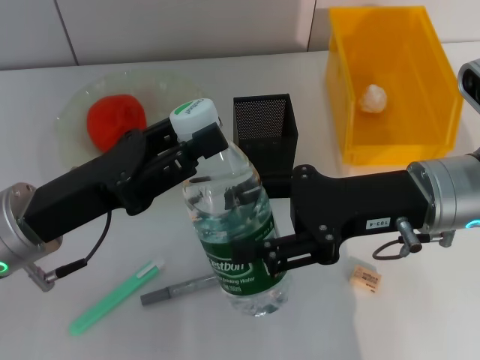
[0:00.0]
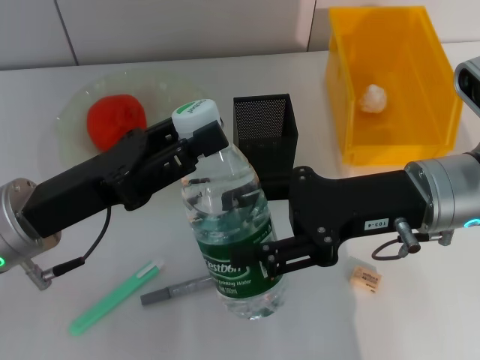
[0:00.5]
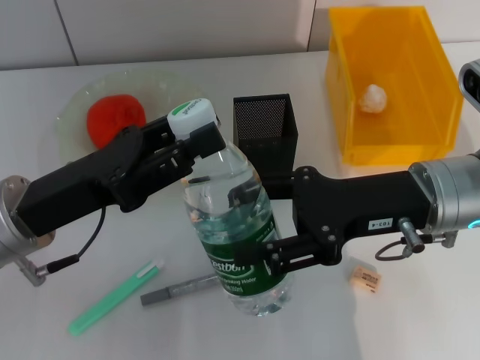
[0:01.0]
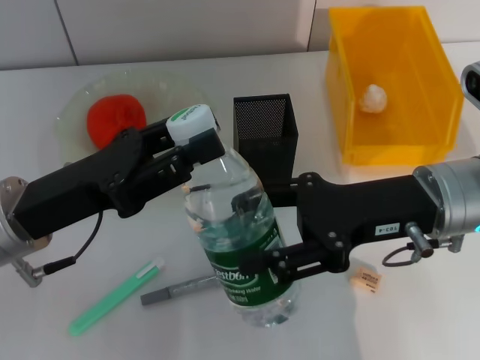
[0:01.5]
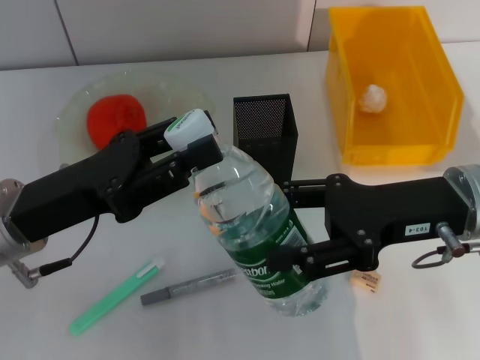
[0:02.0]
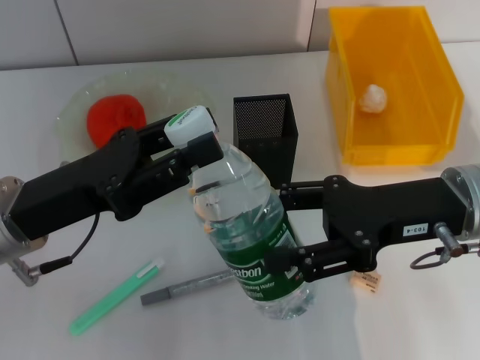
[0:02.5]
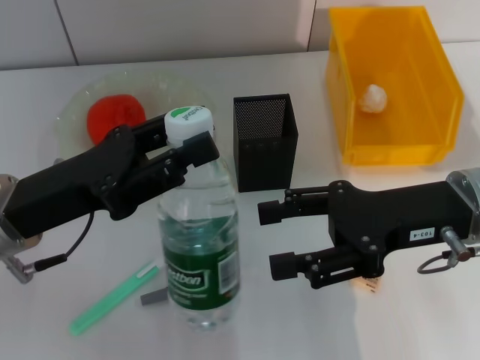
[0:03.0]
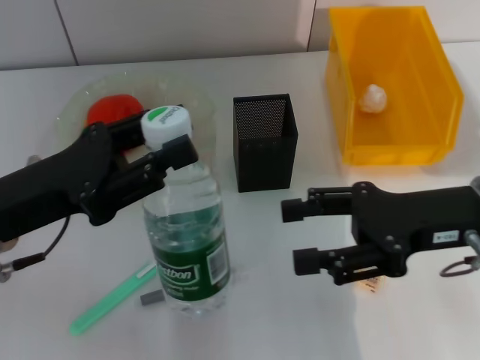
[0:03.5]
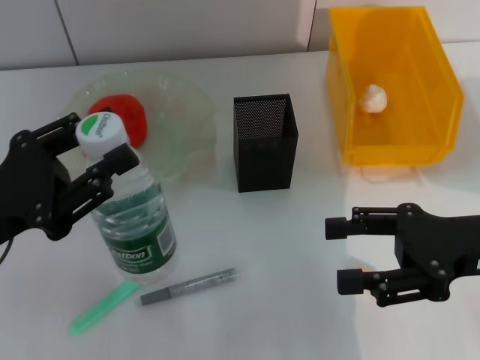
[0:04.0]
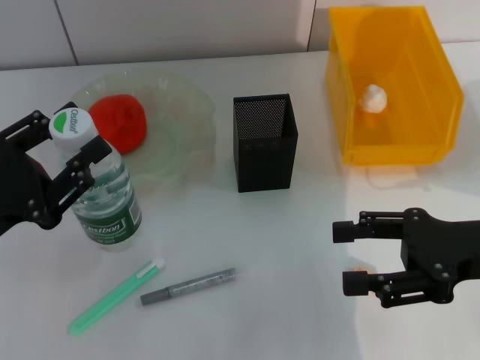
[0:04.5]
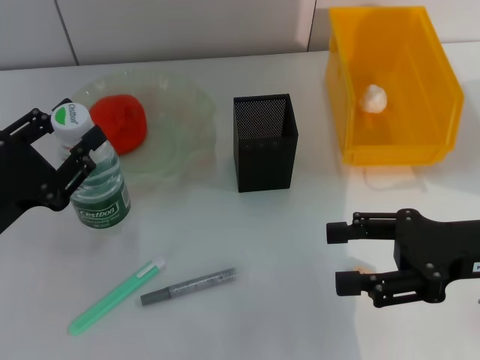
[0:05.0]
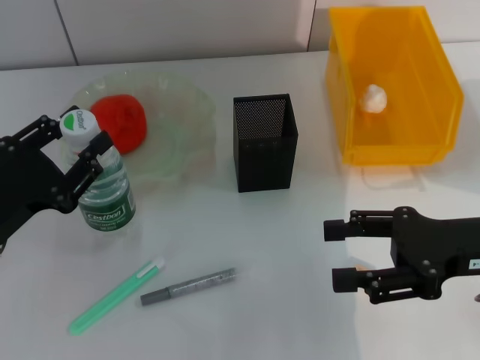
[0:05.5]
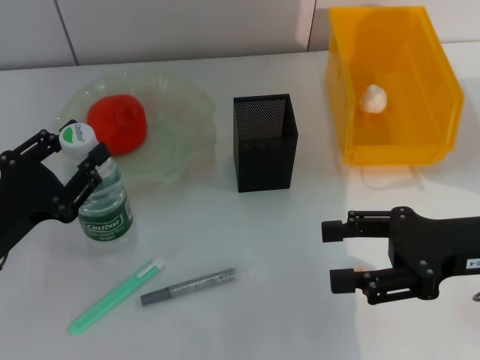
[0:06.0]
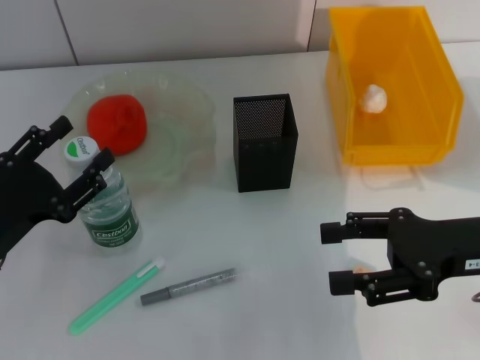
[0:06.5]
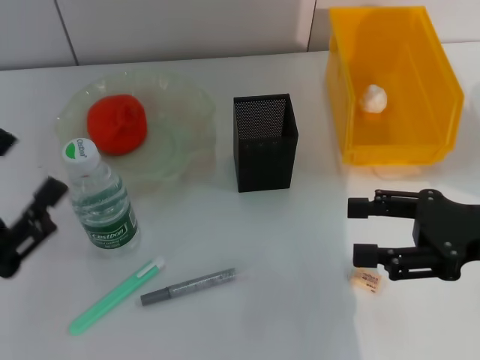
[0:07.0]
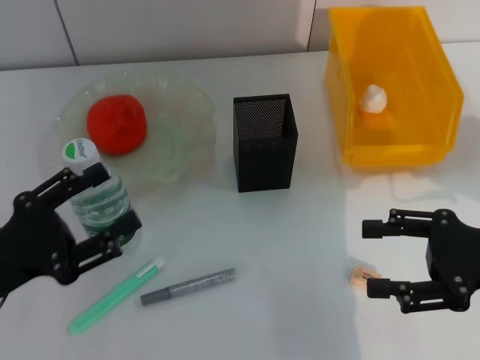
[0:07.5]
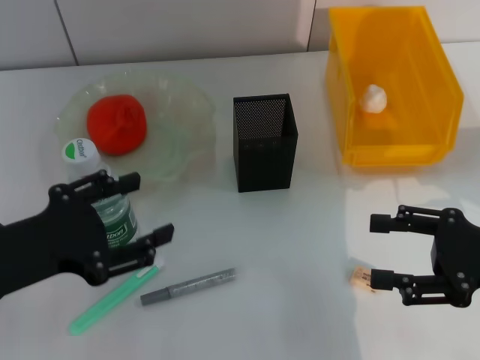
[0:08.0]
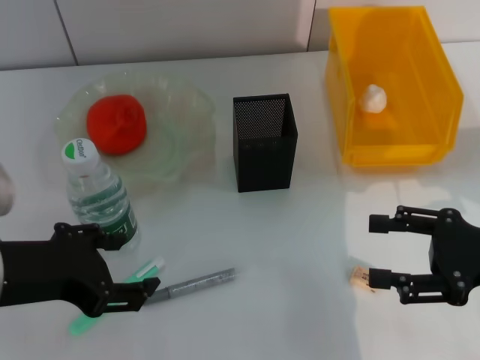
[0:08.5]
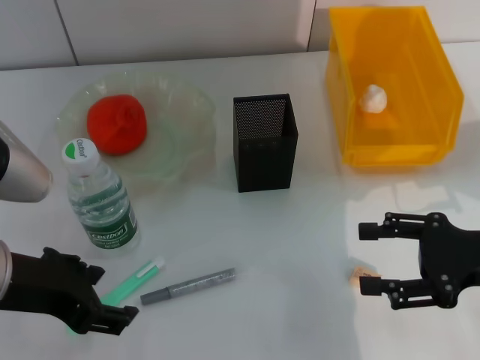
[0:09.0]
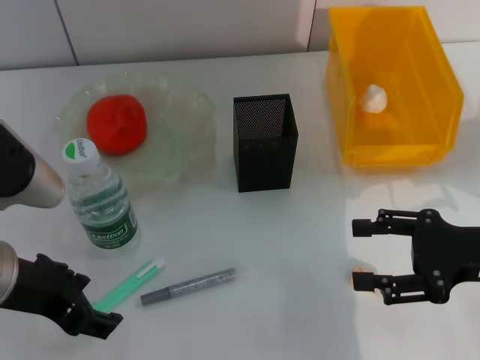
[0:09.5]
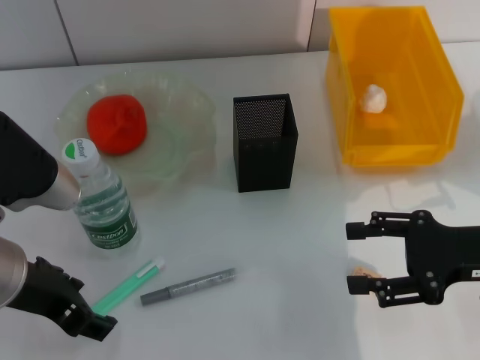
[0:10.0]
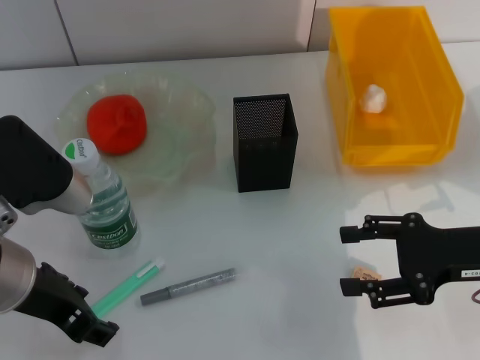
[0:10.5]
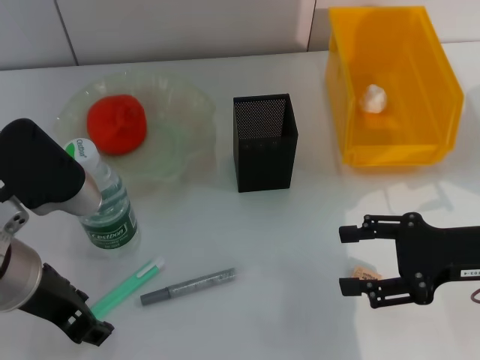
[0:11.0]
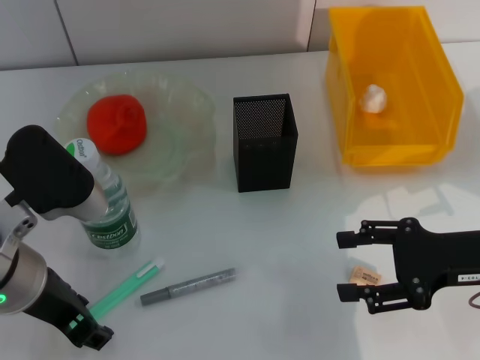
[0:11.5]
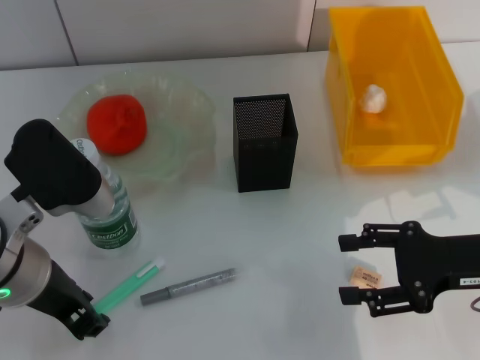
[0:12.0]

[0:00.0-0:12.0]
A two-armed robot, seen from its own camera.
Step, 0:00.0 to 0:02.5: Pass the water bottle from the right hand to the left hand.
Step, 0:03.0 to 0:06.0: Place the water bottle on the table with the left hand.
0:00.0 to 0:02.0: There are only small adjustments of the grippers.
0:02.0 to 0:04.0: The left gripper moves to the left, some 5 cm; the right gripper goes some 5 cm to the right.
0:04.0 to 0:06.0: The left gripper heads downward, covering roughly 5 cm.
0:06.0 to 0:08.0: The left gripper goes roughly 5 cm upward.
0:08.0 to 0:10.0: The left gripper changes place by approximately 5 cm.
0:10.0 to 0:12.0: The left gripper closes up.

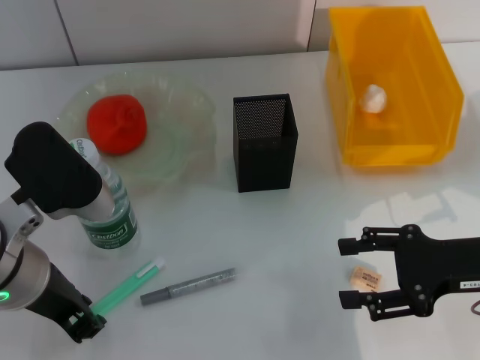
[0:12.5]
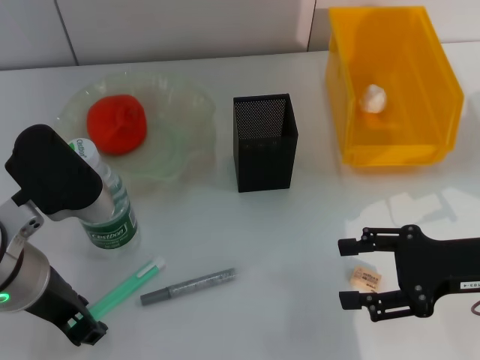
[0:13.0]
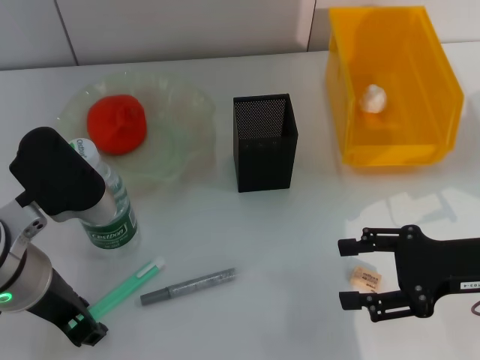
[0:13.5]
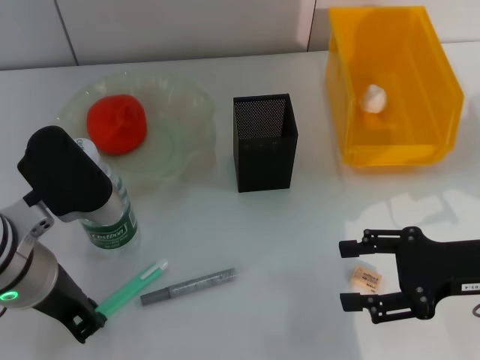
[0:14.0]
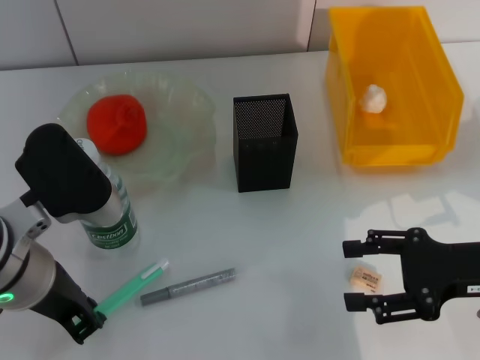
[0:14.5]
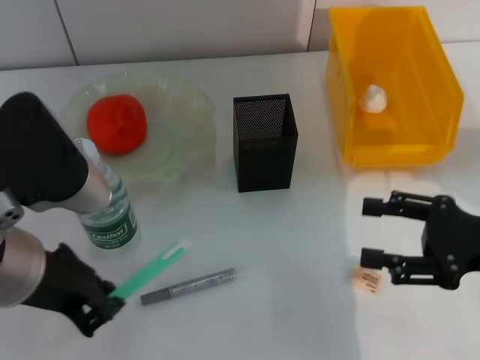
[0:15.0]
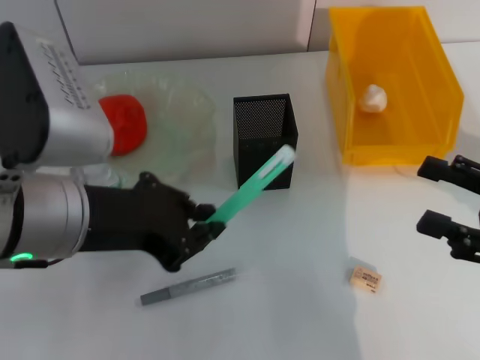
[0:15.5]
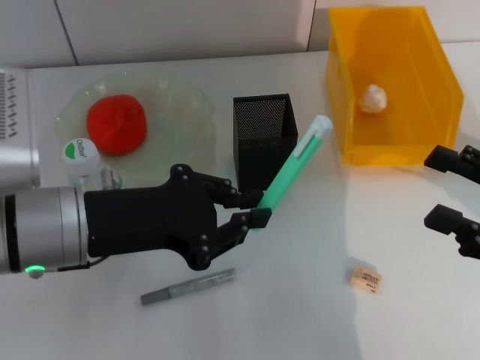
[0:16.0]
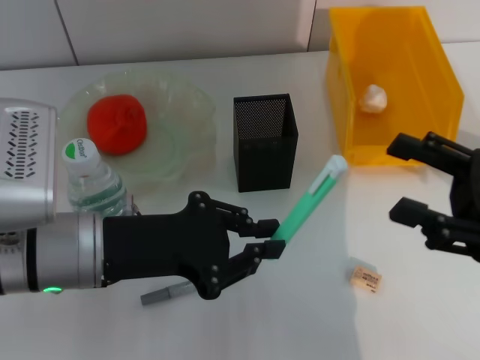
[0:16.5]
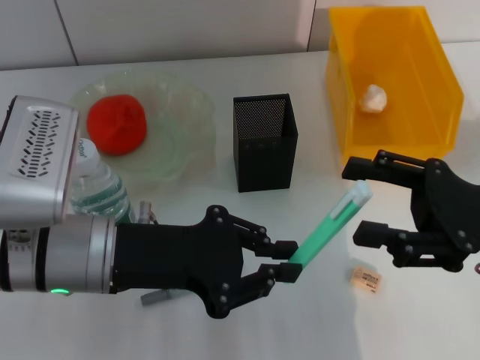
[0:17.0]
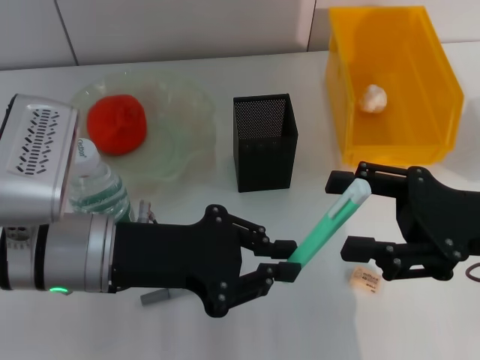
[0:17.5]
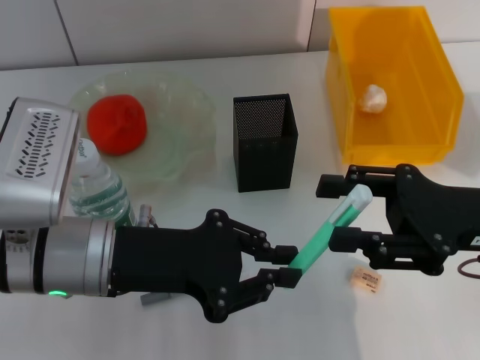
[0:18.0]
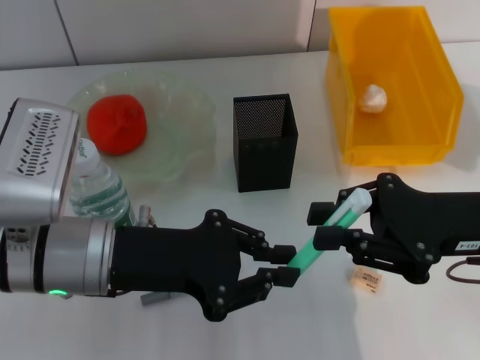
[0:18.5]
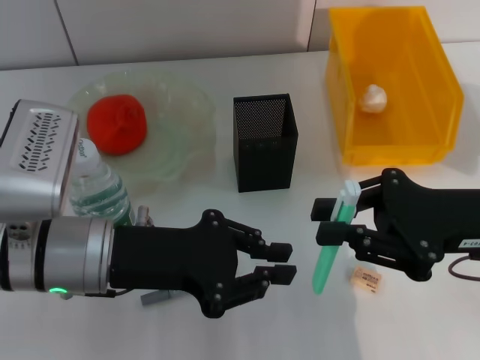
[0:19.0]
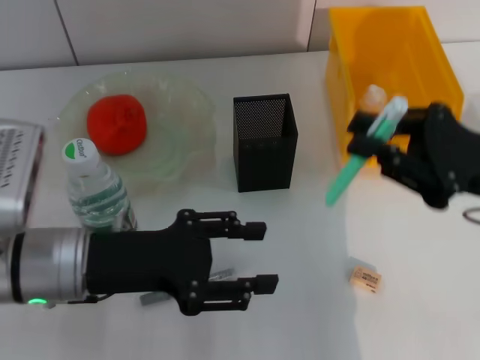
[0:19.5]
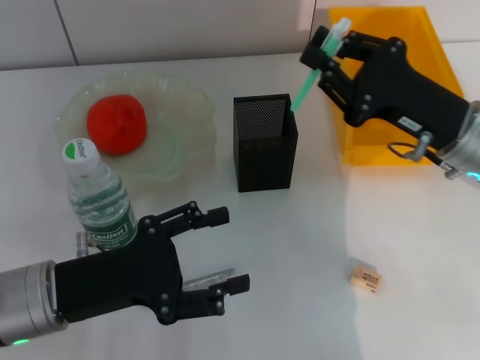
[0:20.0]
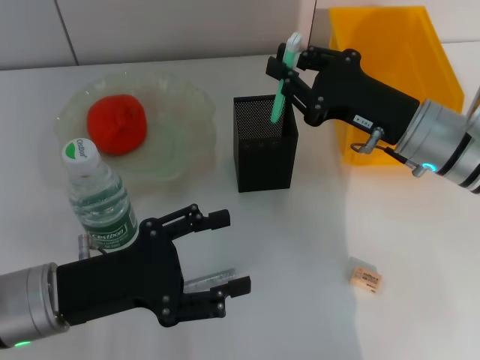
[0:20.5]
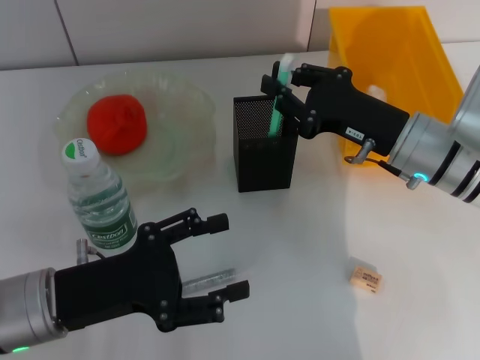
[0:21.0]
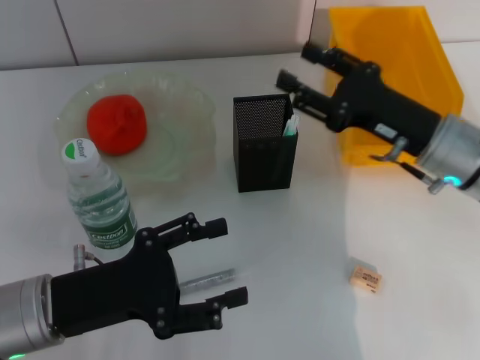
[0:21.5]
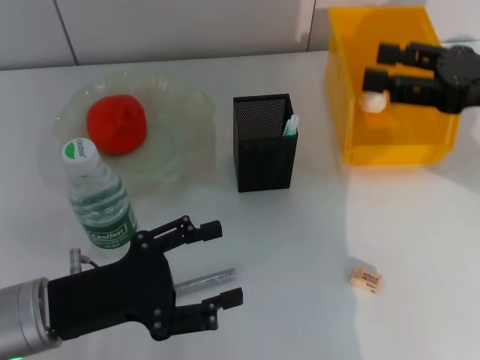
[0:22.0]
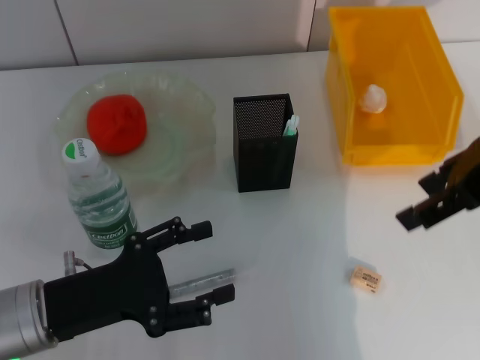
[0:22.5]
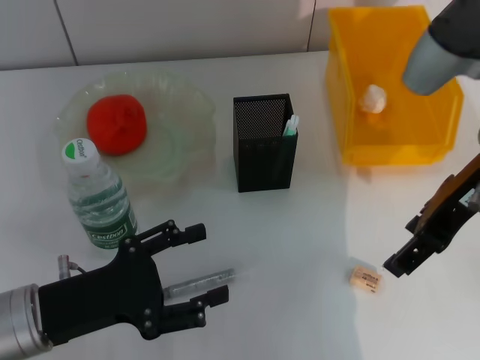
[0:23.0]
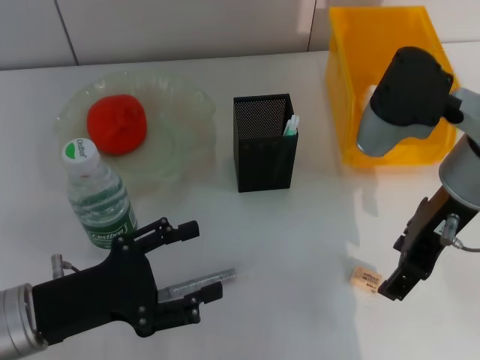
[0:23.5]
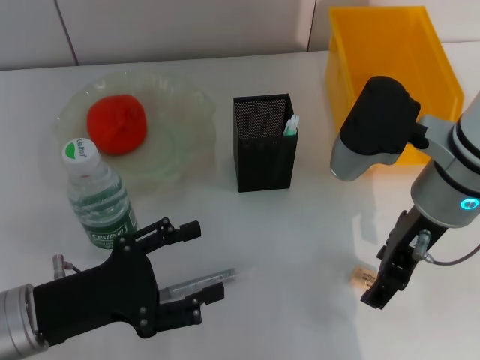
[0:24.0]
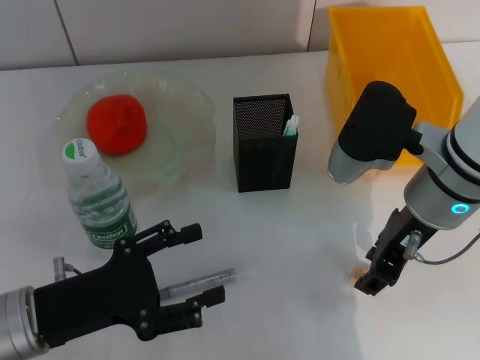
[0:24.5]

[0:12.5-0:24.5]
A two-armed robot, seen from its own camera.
Step, 0:14.5 to 0:18.5: Pass the blue utility knife from the left hand to the right hand.
Step, 0:19.0 to 0:21.0: Place the blue utility knife into the pen holder with the right hand.
0:12.5 to 0:14.5: The two grippers keep their place.
0:16.5 to 0:18.5: The right gripper changes place by roughly 5 cm, and closes its fingers.
0:18.5 to 0:20.5: The right gripper heads forward, covering some 10 cm. Meanwhile the left gripper shifts some 5 cm downward, and opens up.
0:20.5 to 0:22.5: The right gripper travels upward by roughly 15 cm, and opens its fingers.
0:22.5 to 0:24.5: The right gripper heads downward and to the left, covering roughly 15 cm.

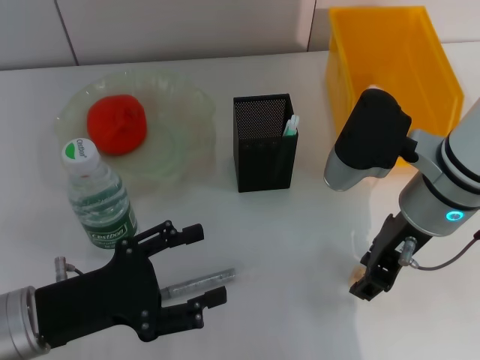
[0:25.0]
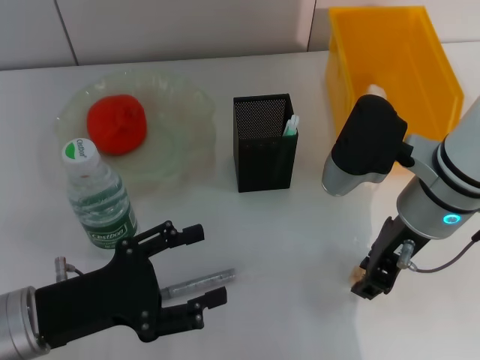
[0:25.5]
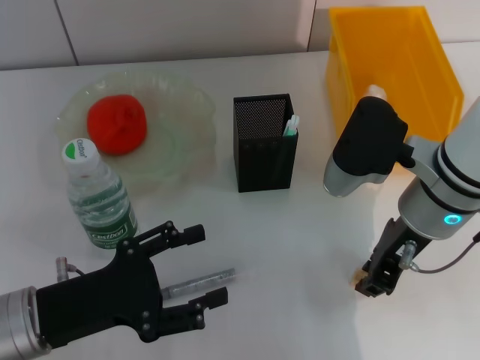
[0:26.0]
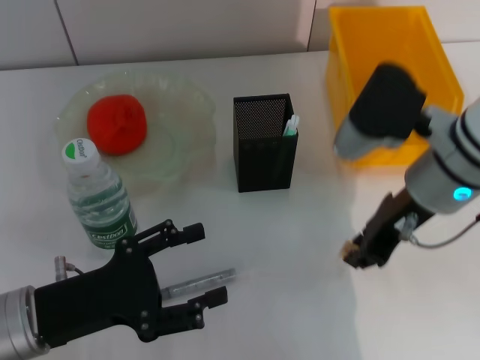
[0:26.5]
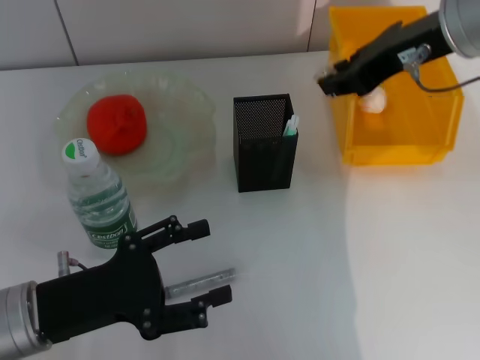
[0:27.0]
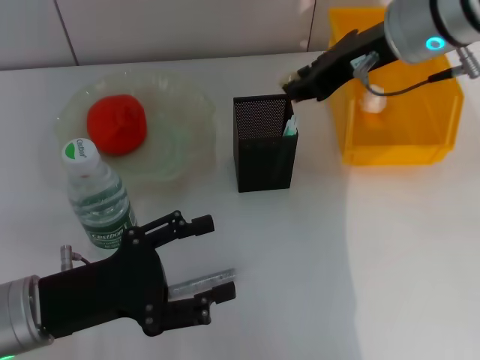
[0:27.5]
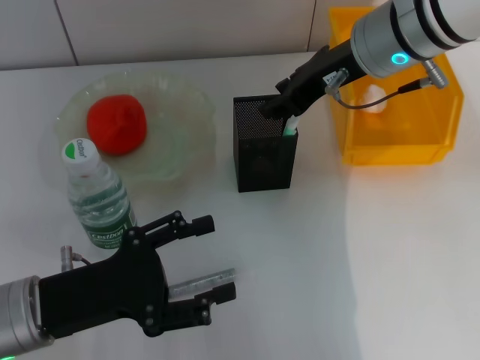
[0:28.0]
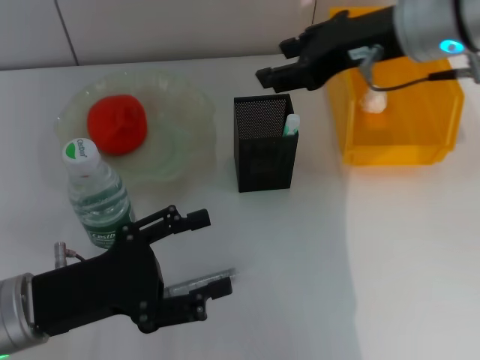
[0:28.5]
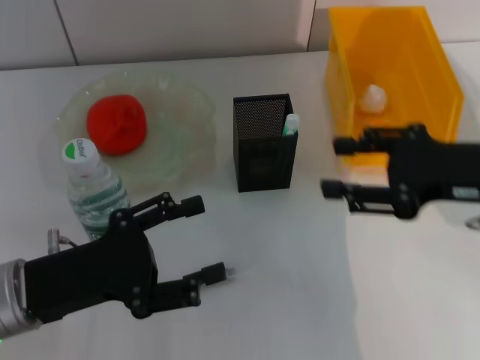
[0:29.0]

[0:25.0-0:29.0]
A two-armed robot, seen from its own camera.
Step, 0:26.0 to 0:28.0: Put the eraser into the pen holder with the right hand.
0:25.0 to 0:27.0: The right gripper moves upward and forward, about 15 cm.
0:27.0 to 0:29.0: The right gripper moves backward, downward and to the right, roughly 15 cm, and opens up.
